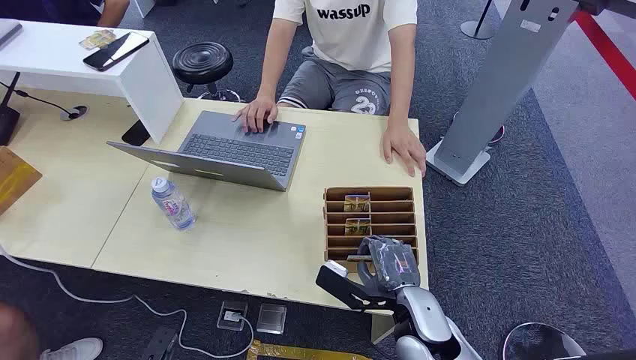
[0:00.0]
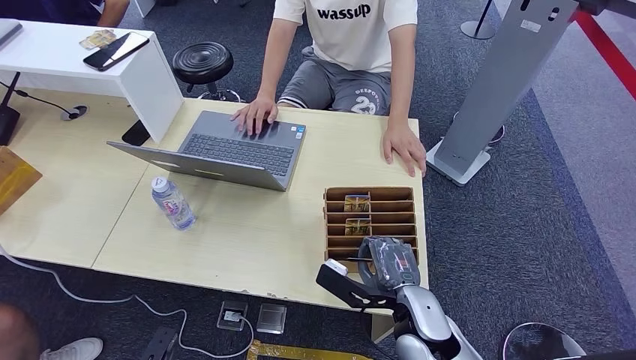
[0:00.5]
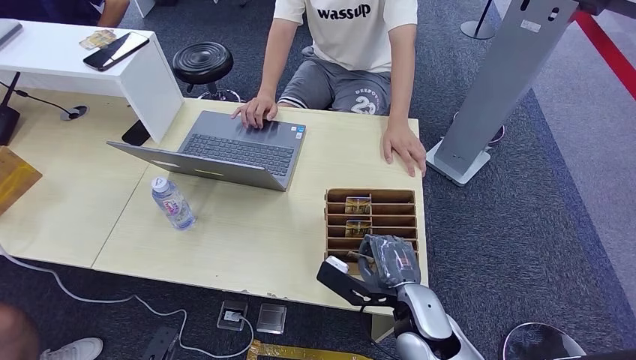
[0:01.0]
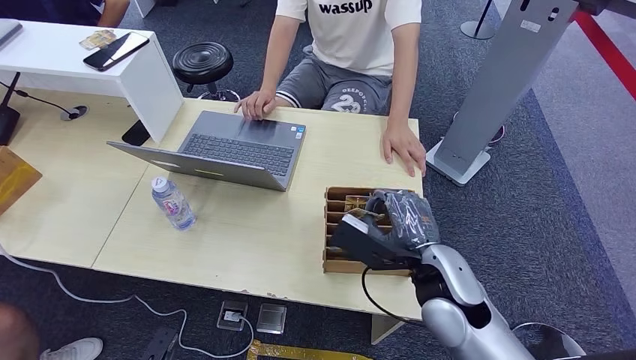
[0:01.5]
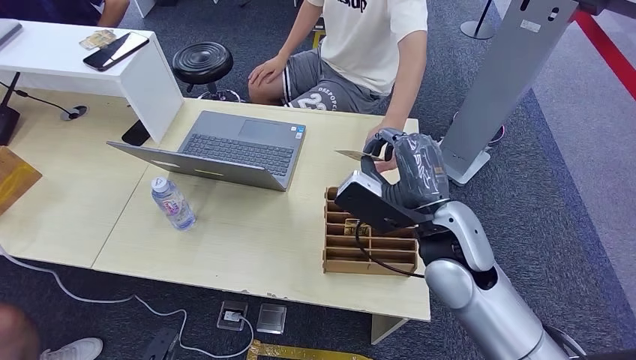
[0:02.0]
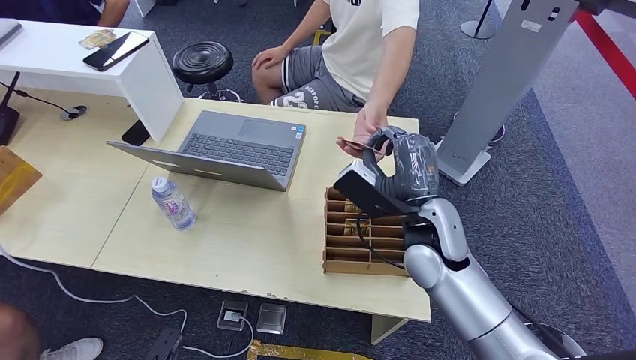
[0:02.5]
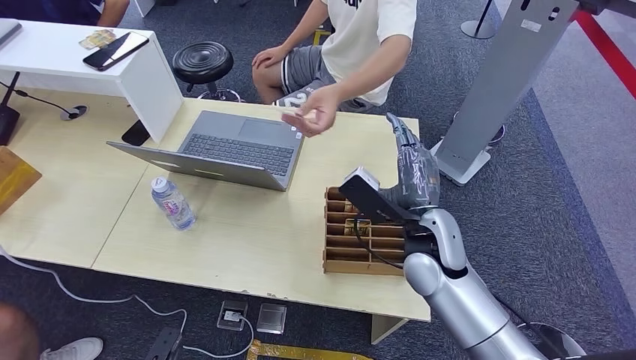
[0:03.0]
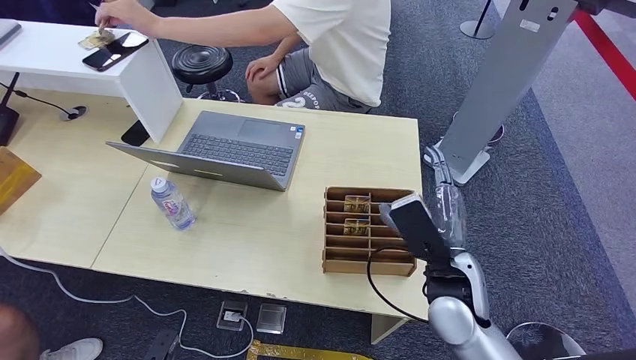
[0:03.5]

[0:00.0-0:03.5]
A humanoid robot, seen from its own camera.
Step, 0:00.0 to 0:01.5: Pick up the room card from the card holder.
Step, 0:02.0 to 0:03.0: Hand the room card to the target.
0:02.0 to 0:03.5: The right hand moves backward and to the right, roughly 15 cm.
